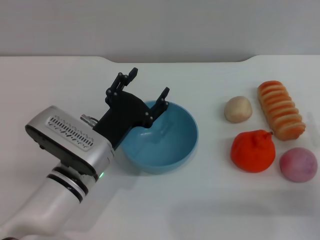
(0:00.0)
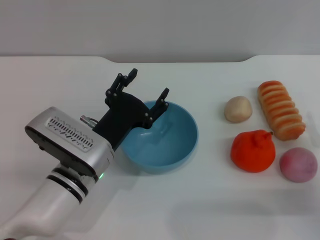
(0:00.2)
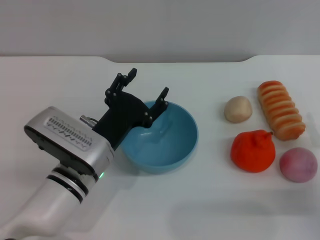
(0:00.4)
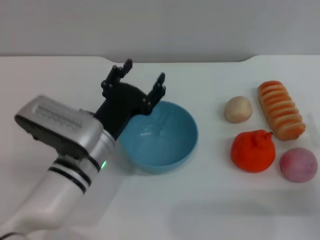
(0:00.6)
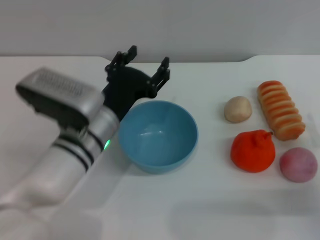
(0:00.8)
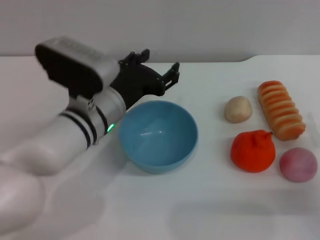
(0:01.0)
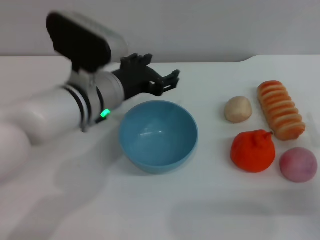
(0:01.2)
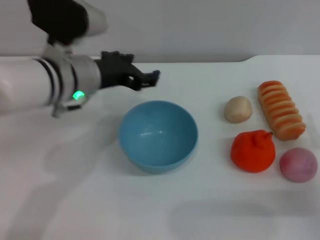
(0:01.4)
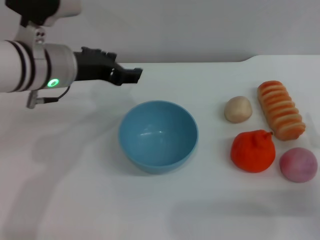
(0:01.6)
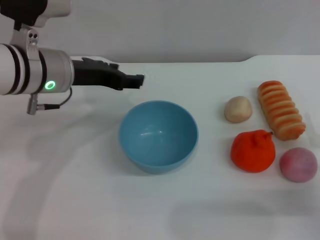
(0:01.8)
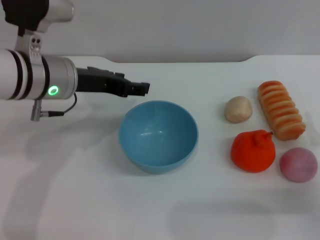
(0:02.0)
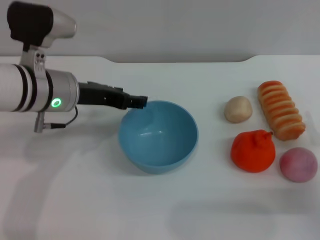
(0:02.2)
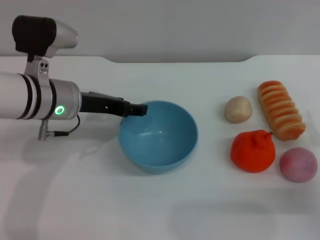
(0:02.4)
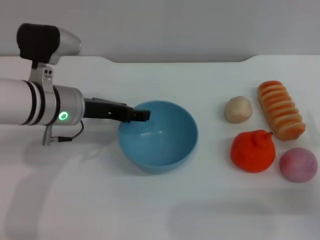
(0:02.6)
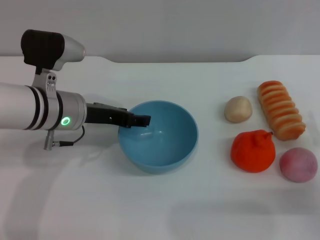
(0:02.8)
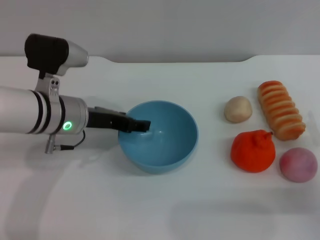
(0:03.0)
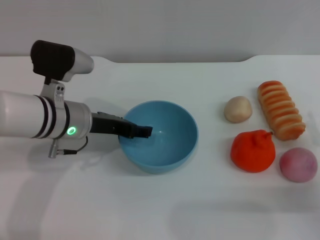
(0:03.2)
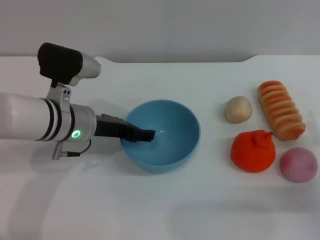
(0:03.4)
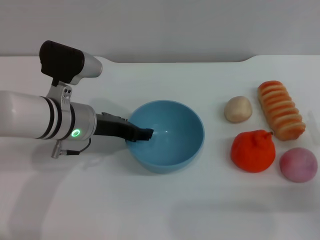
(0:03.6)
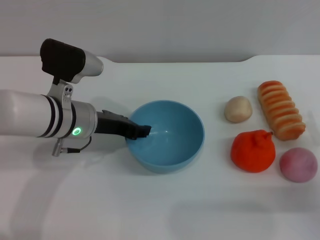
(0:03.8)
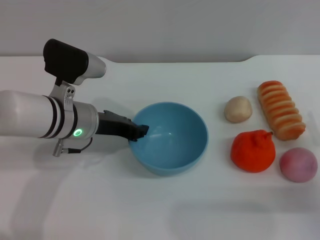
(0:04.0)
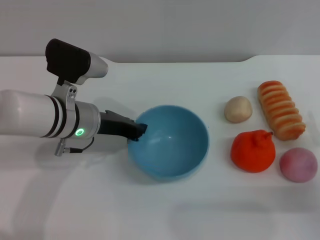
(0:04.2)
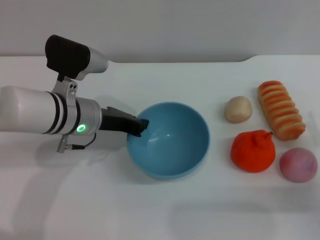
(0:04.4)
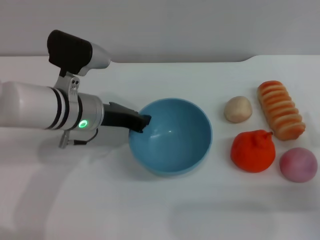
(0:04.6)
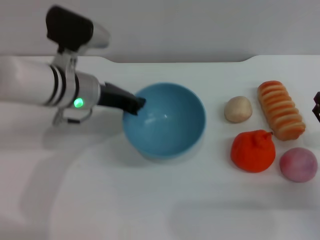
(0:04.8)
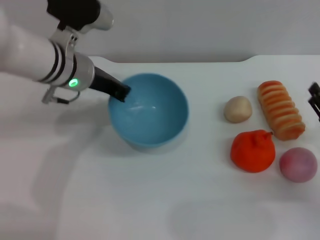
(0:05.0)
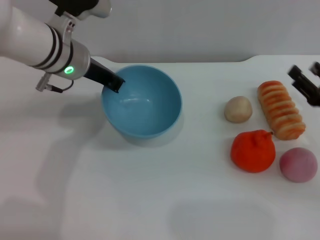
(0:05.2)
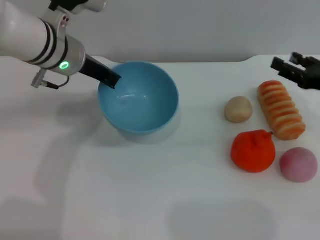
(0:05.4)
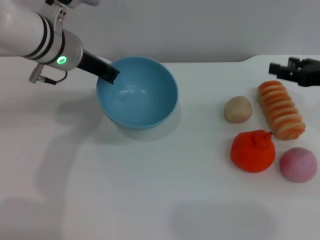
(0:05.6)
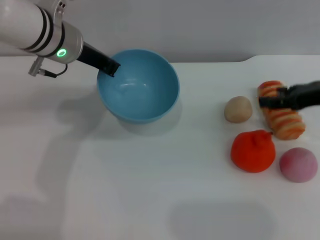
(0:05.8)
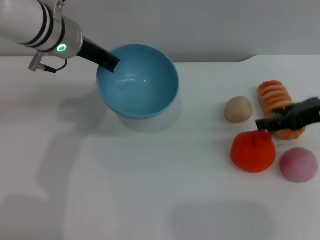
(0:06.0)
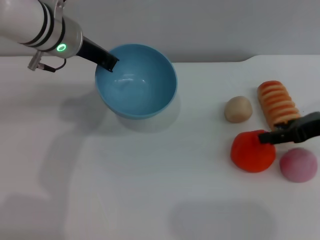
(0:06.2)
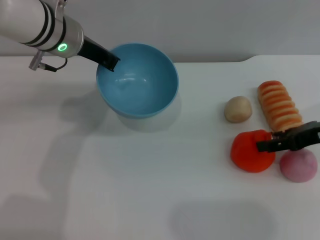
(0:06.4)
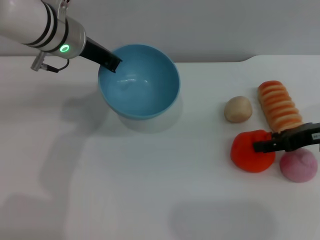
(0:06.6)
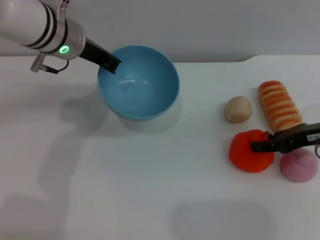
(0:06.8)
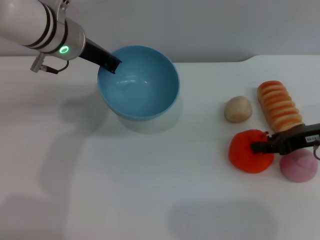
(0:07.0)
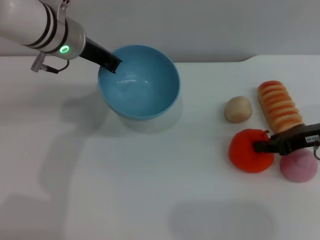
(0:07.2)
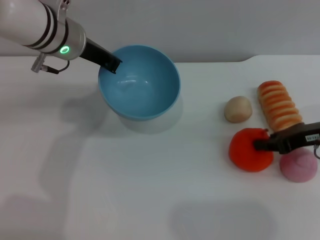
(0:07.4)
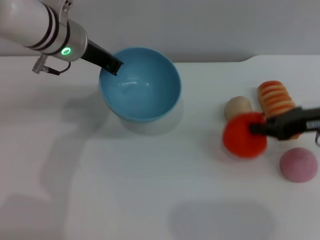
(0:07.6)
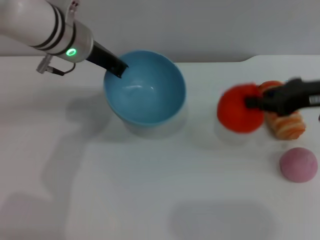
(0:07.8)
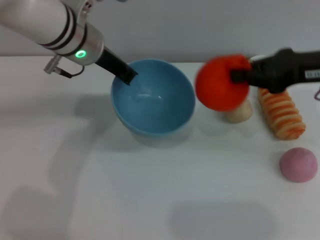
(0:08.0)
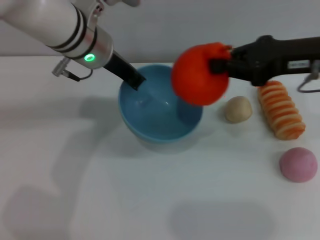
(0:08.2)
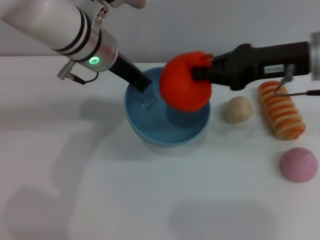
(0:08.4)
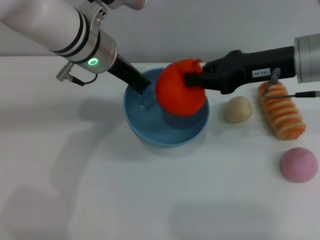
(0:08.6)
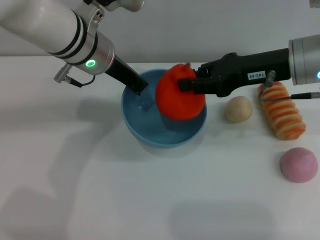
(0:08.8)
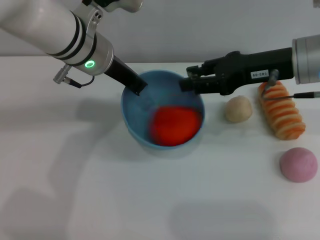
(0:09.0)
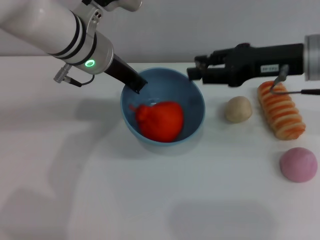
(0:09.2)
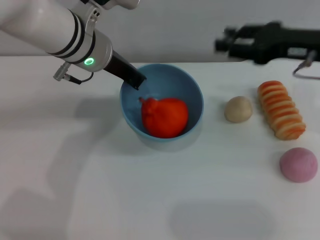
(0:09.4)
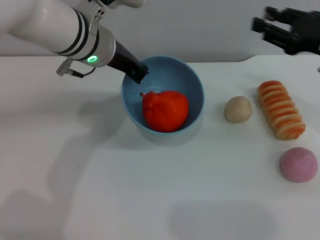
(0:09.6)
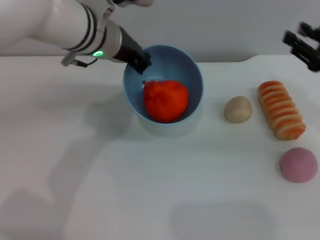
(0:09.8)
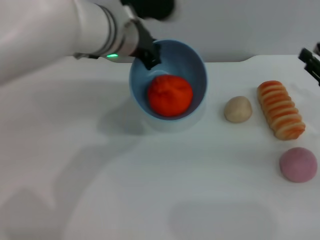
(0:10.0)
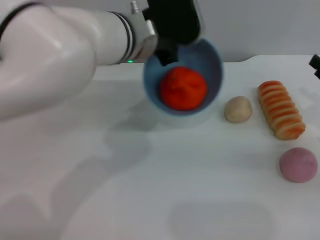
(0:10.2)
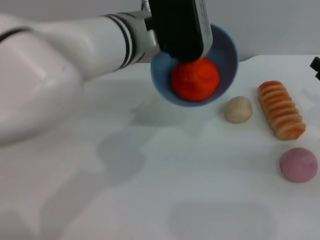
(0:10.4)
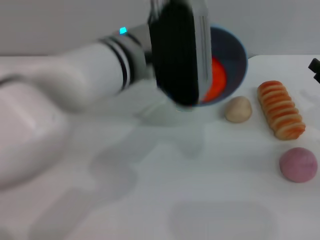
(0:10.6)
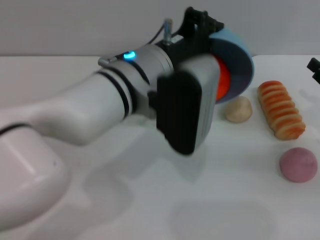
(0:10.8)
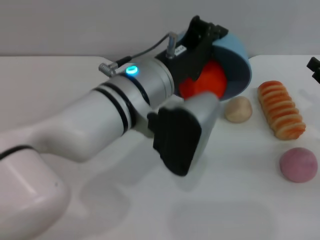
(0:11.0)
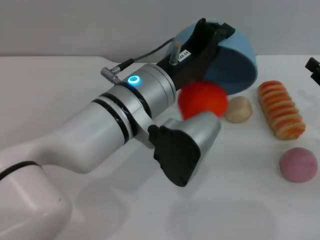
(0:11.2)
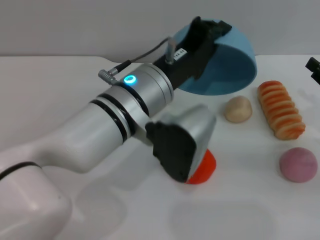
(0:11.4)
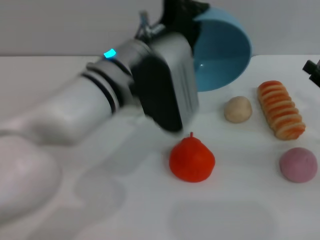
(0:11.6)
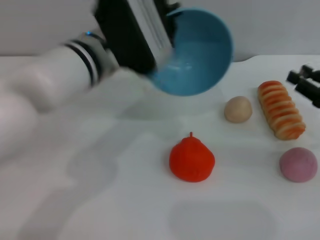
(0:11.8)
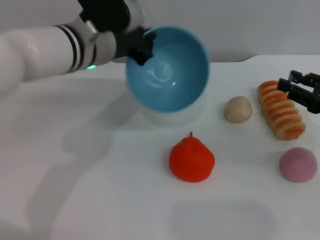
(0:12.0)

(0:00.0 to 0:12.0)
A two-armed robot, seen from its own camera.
Task of the whole recording: put the orange into the blue bowl and pour it out repeatedly.
Step, 0:00.0 - 0:05.6: Pick up the bowl with the left gripper.
Step, 0:05.8 - 0:07.8: Pick up the orange with the right gripper.
Step, 0:08.0 - 0:09.0: Place the orange into the bowl.
Step, 0:09.2 - 0:11.2: Pour the orange out of the bowl.
0:00.0 - 0:01.6: The left gripper moves upward and forward, roughly 15 cm.
0:01.6 - 0:03.0: The left gripper is displaced downward by about 10 cm.
0:03.0 - 0:04.4: The left gripper closes up.
0:04.4 - 0:06.0: Both grippers move upward and forward, some 15 cm.
0:06.0 - 0:07.6: The right gripper closes its fingers.
0:07.6 - 0:09.0: The right gripper moves to the left and upward, approximately 10 cm.
0:09.0 - 0:10.4: The left gripper travels to the right by roughly 5 cm. The right gripper travels to the right, downward and backward by about 20 cm.
0:10.4 - 0:12.0: The left gripper travels to the left by roughly 5 cm.

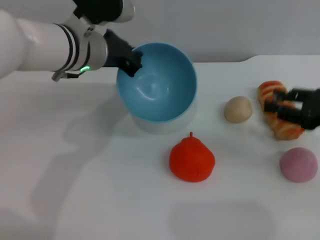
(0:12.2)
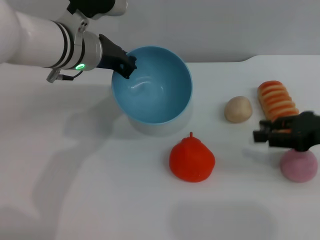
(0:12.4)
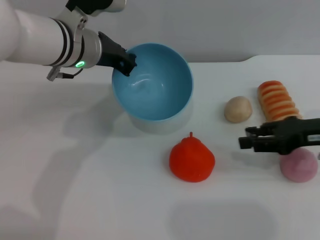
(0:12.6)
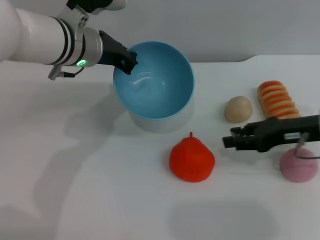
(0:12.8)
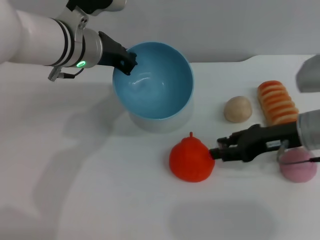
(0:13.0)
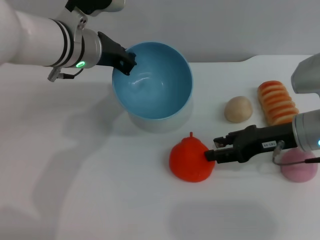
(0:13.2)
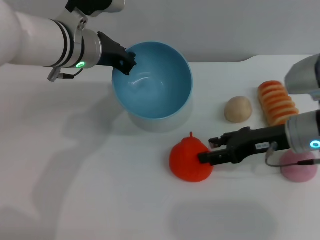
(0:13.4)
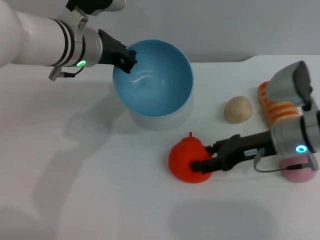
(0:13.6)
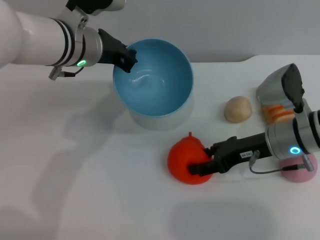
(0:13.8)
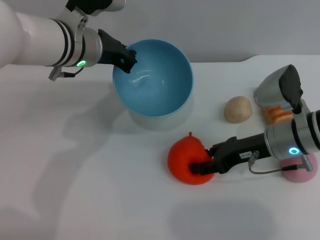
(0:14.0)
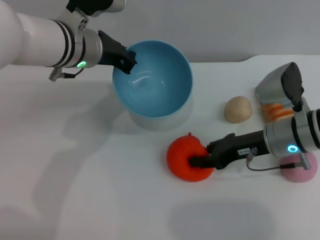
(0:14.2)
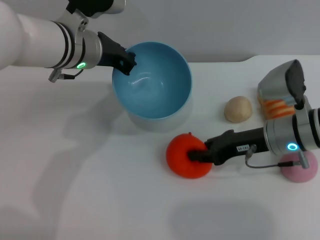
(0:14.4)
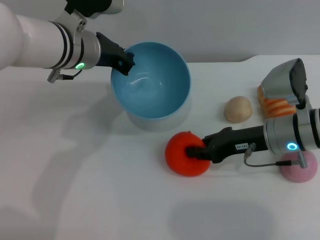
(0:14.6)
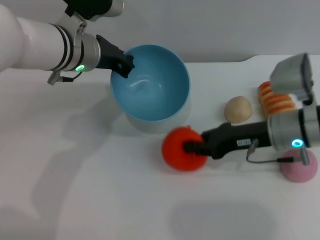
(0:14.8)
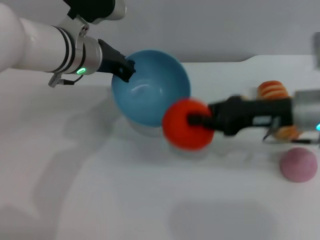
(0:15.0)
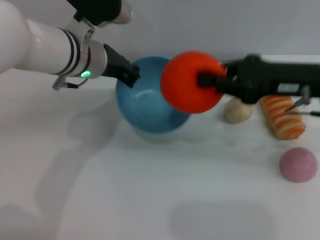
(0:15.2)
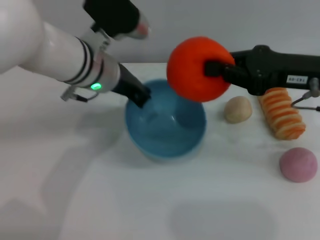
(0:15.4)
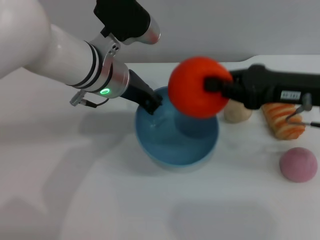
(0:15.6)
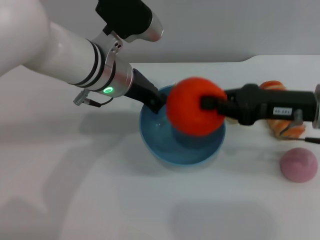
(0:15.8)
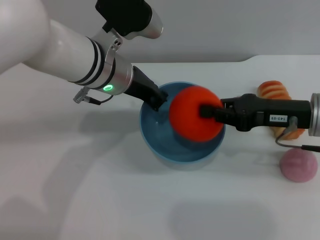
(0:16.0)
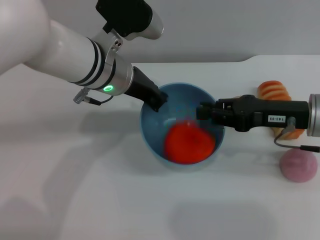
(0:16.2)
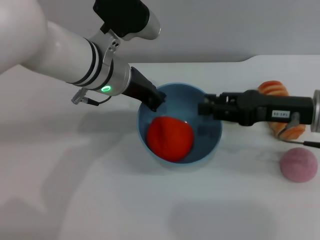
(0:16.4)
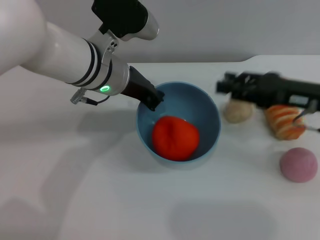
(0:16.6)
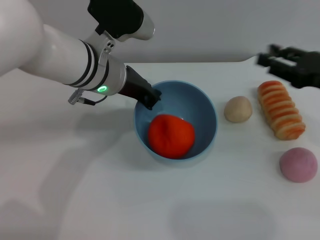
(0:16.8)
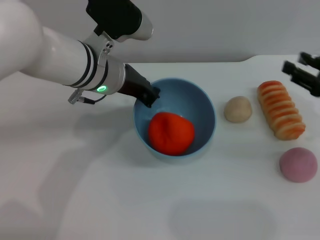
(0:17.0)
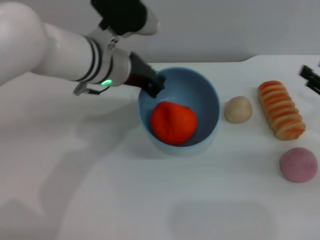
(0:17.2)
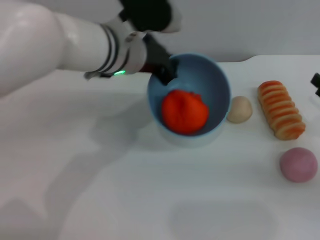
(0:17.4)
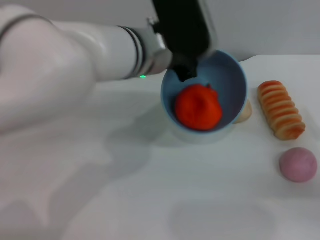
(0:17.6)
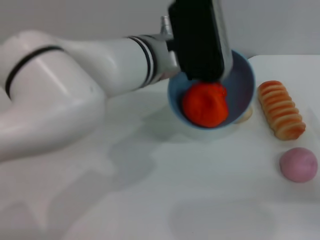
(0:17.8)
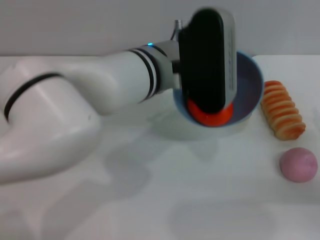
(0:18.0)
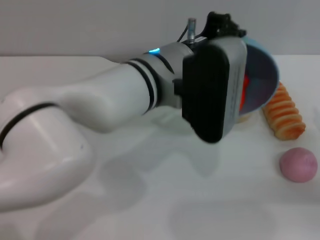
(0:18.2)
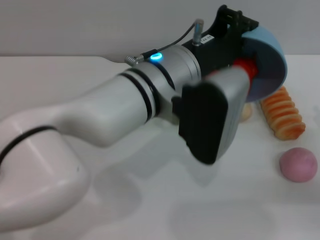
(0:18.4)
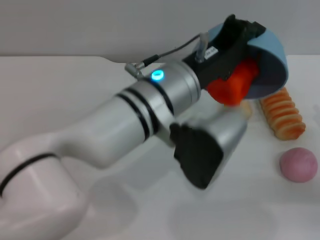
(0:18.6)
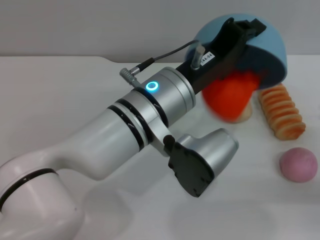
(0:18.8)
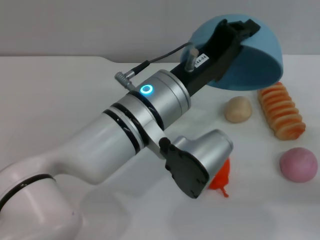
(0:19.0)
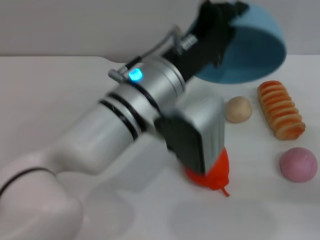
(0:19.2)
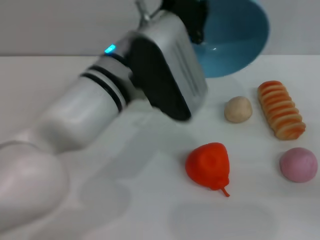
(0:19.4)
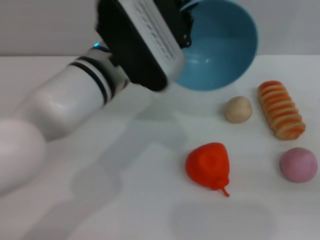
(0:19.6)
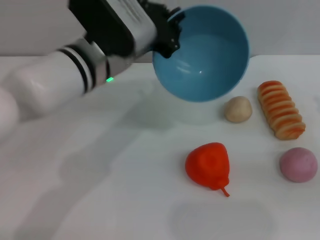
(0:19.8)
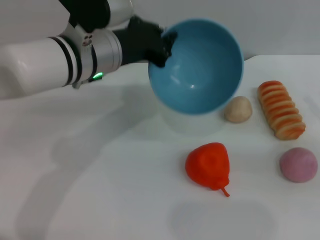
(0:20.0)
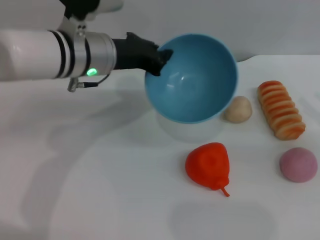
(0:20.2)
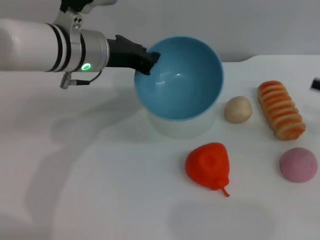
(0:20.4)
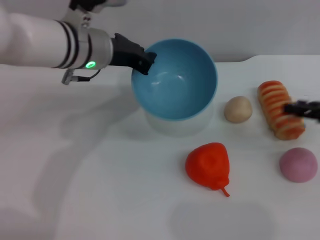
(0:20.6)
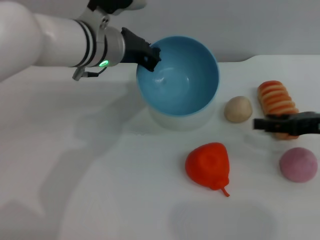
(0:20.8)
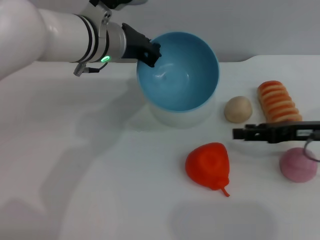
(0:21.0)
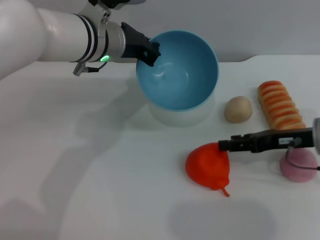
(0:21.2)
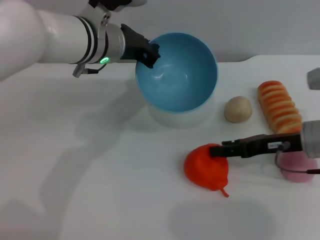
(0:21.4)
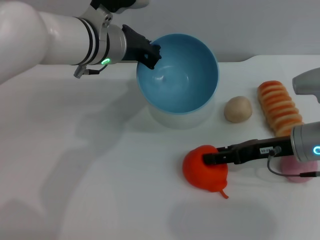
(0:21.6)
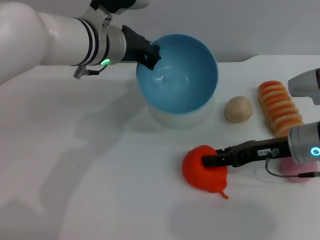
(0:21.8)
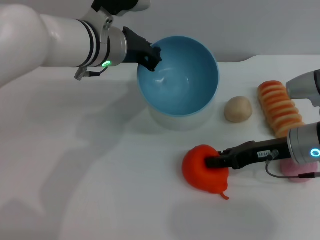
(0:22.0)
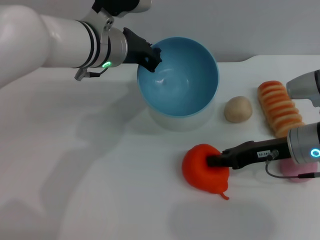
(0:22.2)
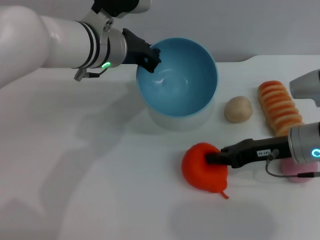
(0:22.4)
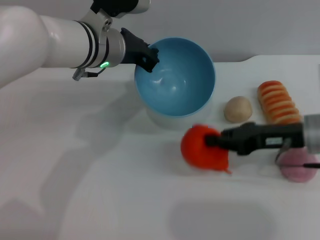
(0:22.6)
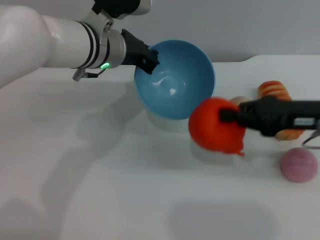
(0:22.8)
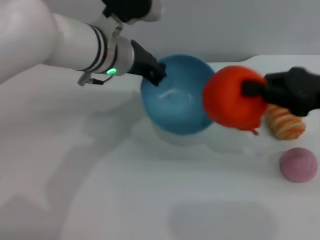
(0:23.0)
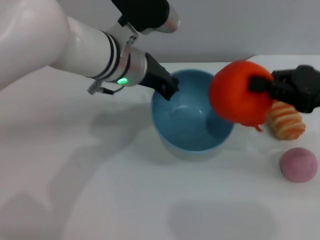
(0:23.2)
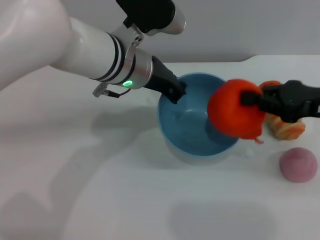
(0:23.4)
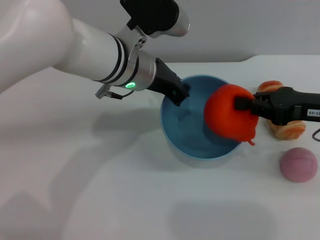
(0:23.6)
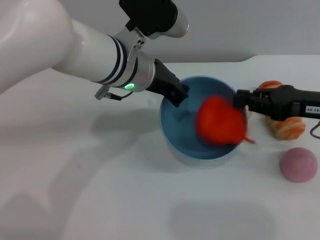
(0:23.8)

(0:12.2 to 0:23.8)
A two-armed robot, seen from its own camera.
Task of the whole recording: put the orange into the blue bowl and pour it out repeatedly.
Step, 0:12.2 - 0:14.8: Pick up the orange with the right gripper.
Step, 0:15.0 - 0:16.4: Place the orange into the bowl.
Step, 0:16.6 - 0:18.8: Pour the orange out of the bowl.
Step, 0:19.0 - 0:23.0: Pick up the orange with the right gripper.
0:12.2 - 0:13.6: The right gripper goes roughly 15 cm to the left and downward, and opens its fingers.
0:13.6 - 0:15.0: The right gripper goes some 5 cm upward, and closes.
0:15.0 - 0:16.6: The right gripper opens up.
0:16.6 - 0:18.0: The left gripper shifts roughly 5 cm to the right. Meanwhile the right gripper goes some 15 cm to the right, downward and backward, and opens.
0:19.4 - 0:21.0: The left gripper heads forward, covering some 10 cm; the right gripper moves to the left and forward, some 10 cm.
0:21.0 - 0:22.4: The right gripper goes approximately 5 cm to the left, and closes its fingers.
0:22.4 - 0:23.8: The right gripper goes approximately 5 cm upward.
